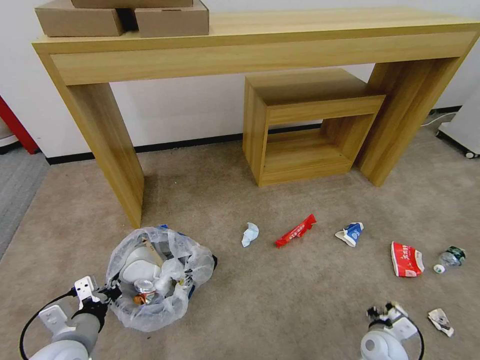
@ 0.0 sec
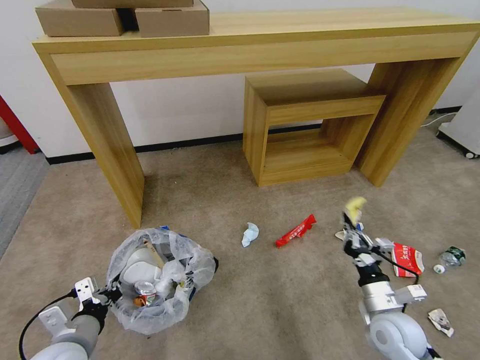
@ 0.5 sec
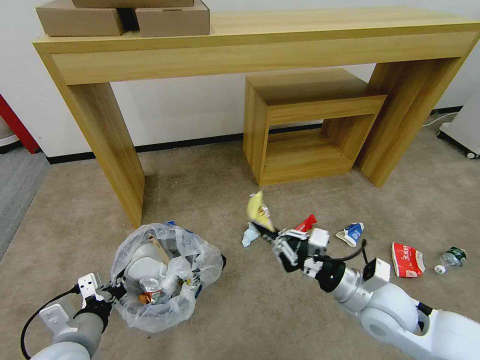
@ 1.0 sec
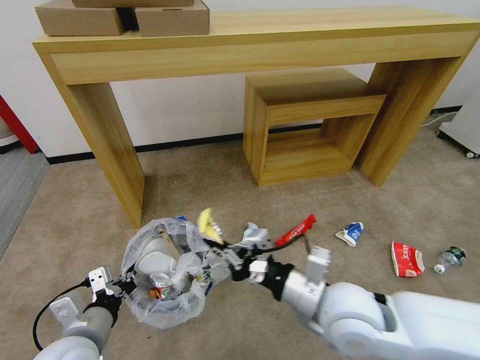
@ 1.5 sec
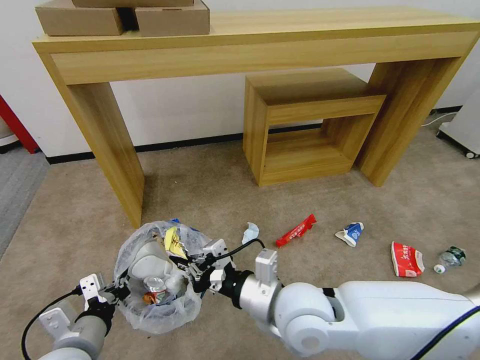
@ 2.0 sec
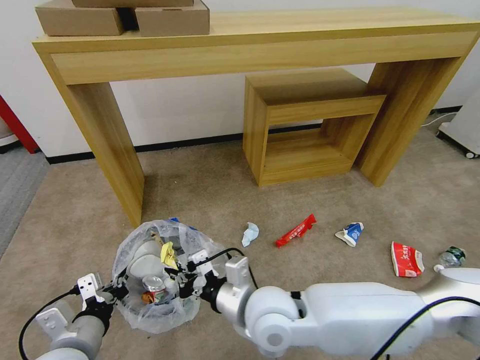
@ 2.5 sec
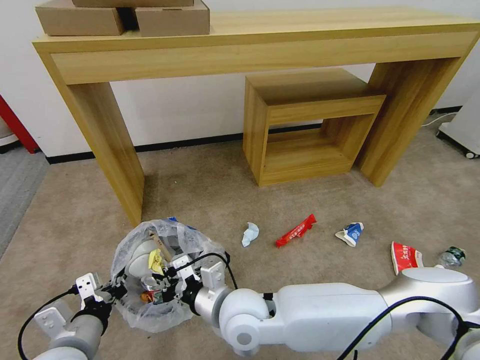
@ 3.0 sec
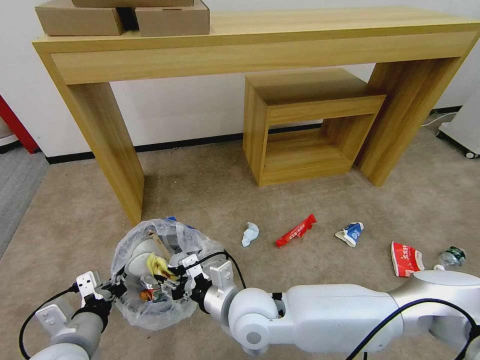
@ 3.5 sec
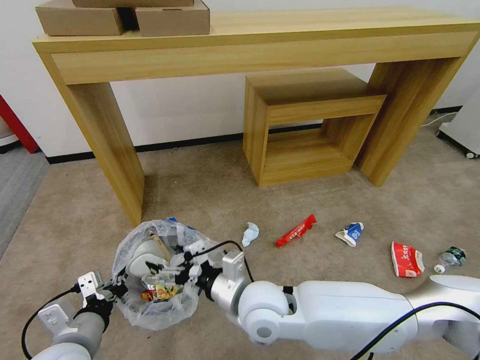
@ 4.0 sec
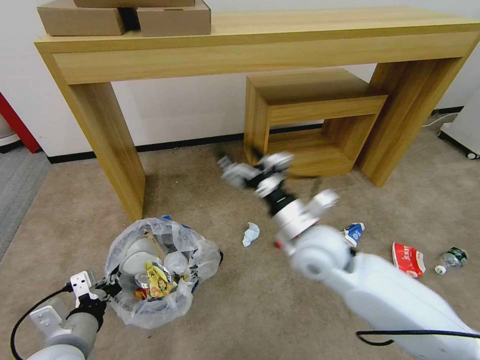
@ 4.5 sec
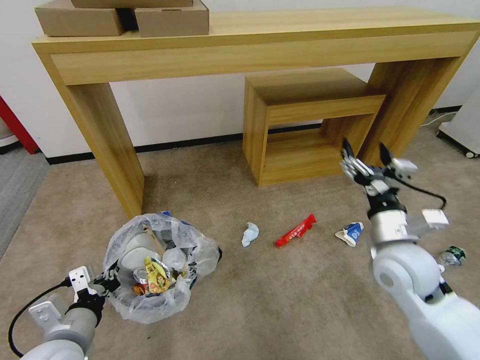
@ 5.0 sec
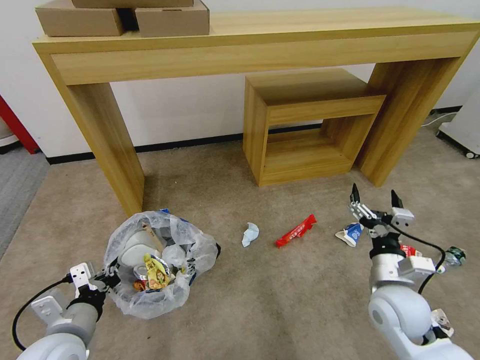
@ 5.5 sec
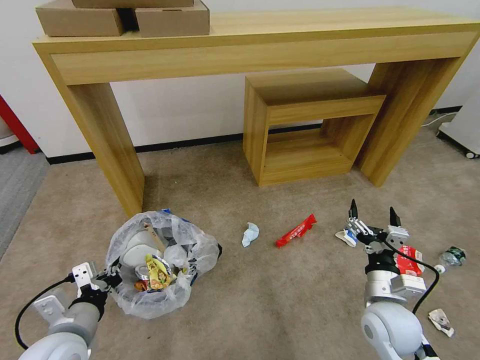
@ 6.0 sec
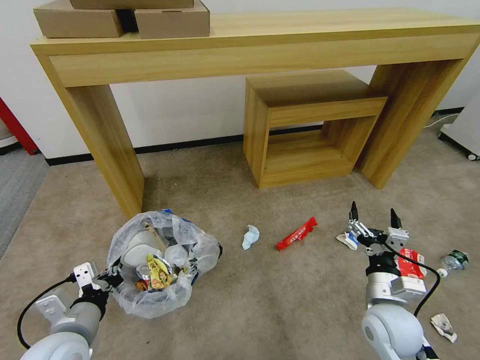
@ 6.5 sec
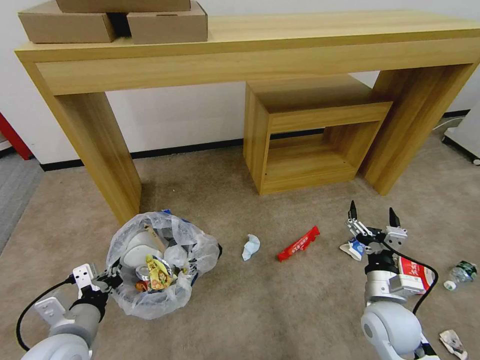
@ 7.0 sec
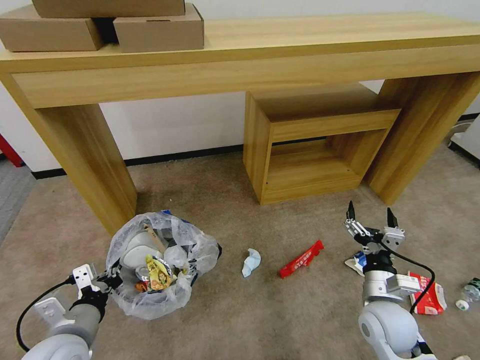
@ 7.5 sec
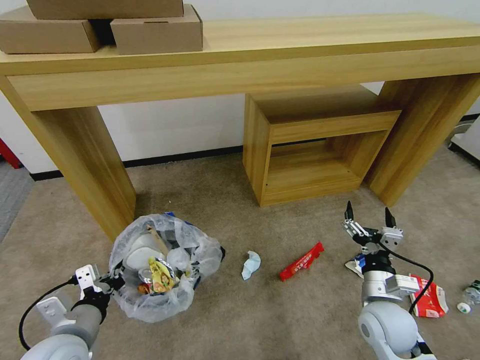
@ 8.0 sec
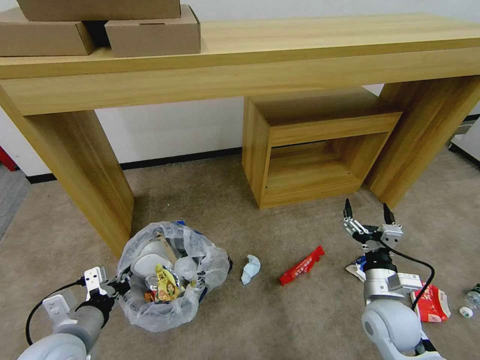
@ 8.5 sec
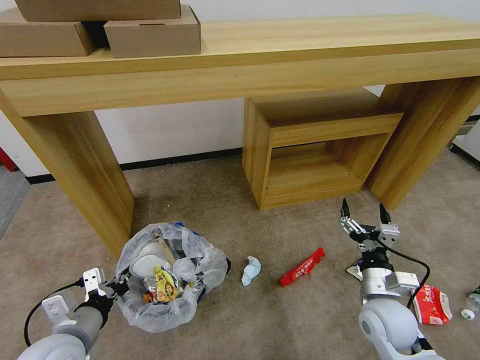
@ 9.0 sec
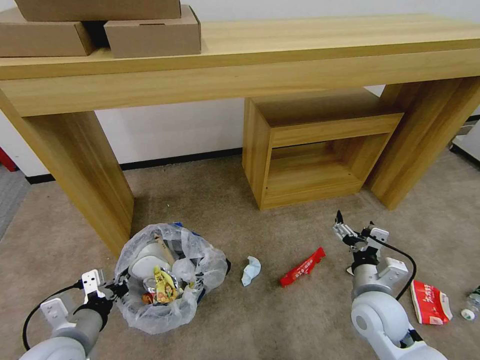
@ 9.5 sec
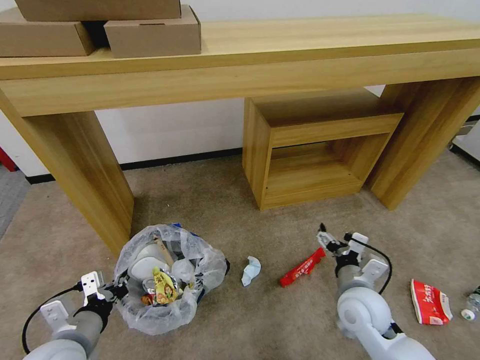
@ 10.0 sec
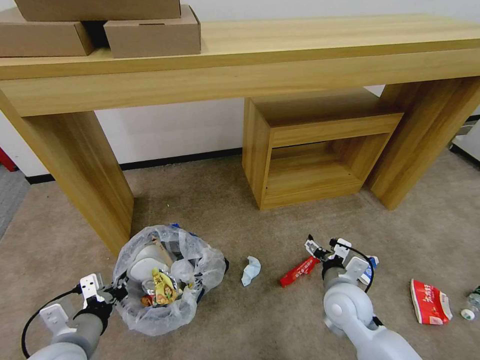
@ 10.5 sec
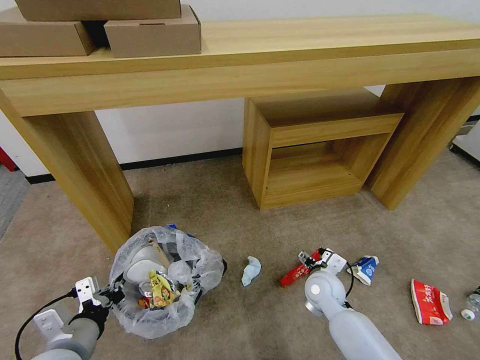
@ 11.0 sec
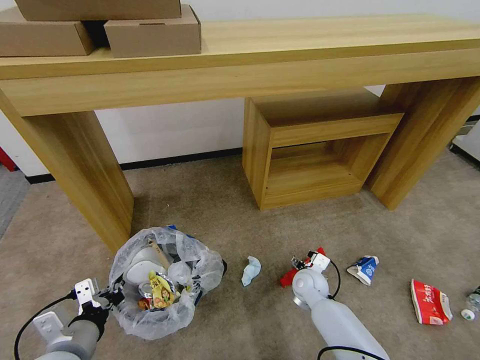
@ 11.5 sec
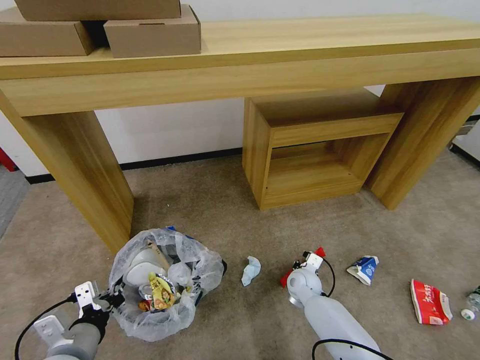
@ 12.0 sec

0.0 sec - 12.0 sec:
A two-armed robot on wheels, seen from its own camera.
Task of the whole recording: Pick up the trash bin and place the garbage on the floor into it.
0.0 sec - 2.0 sec: The left gripper changes place by roughly 5 cm. Meanwhile the right gripper travels upward and to the left by some 35 cm.
2.0 sec - 4.0 sec: The right gripper is displaced to the left by approximately 5 cm, and opens its fingers.
4.0 sec - 6.0 sec: The right gripper heads to the right, covering about 25 cm.
8.0 sec - 10.0 sec: The right gripper ends up about 5 cm from where it was.
10.0 sec - 12.0 sec: The right gripper is displaced downward and forward by some 20 cm, and closes its fingers.

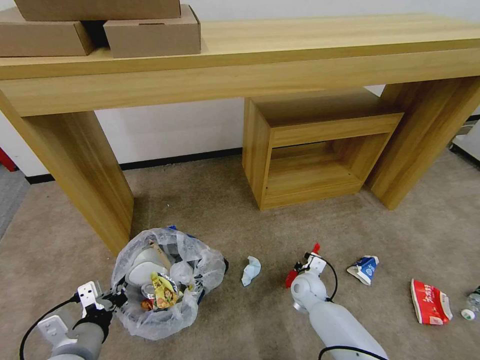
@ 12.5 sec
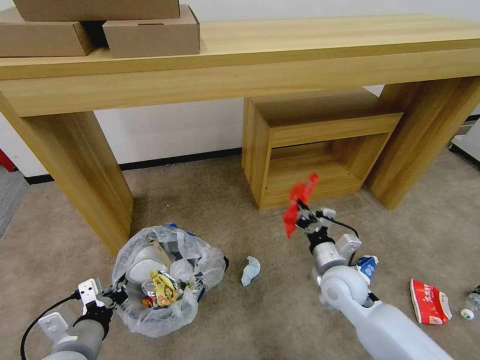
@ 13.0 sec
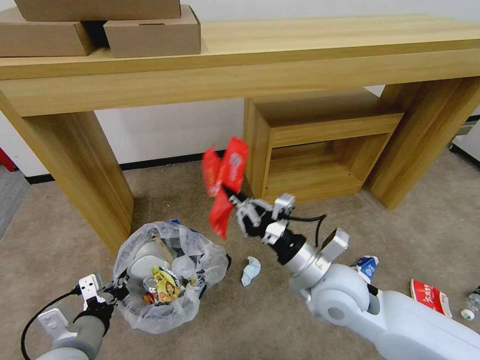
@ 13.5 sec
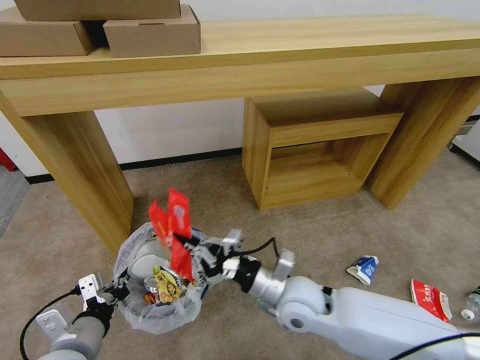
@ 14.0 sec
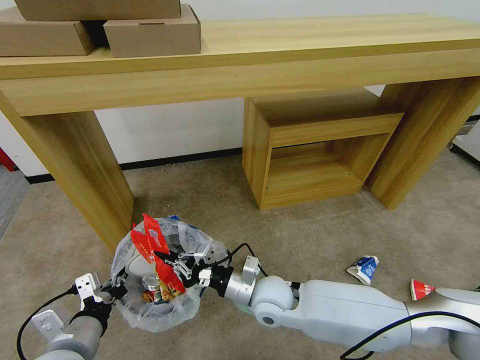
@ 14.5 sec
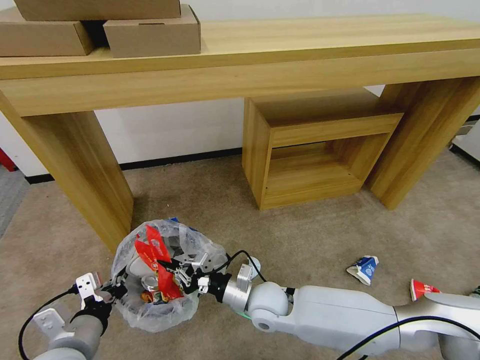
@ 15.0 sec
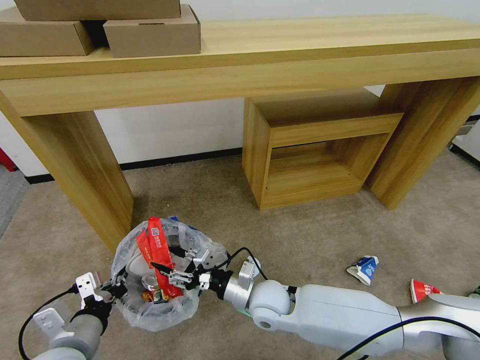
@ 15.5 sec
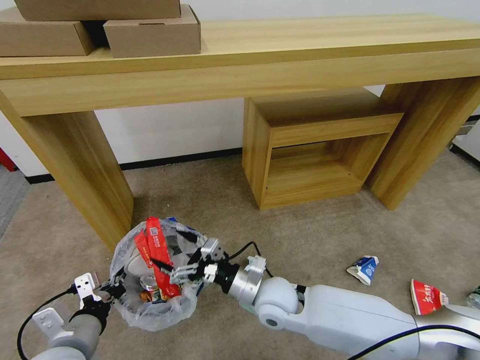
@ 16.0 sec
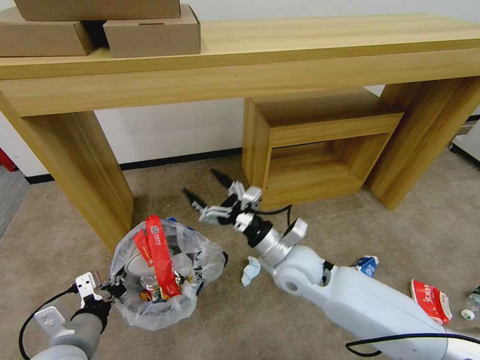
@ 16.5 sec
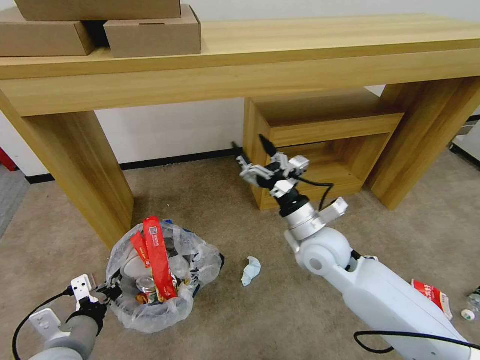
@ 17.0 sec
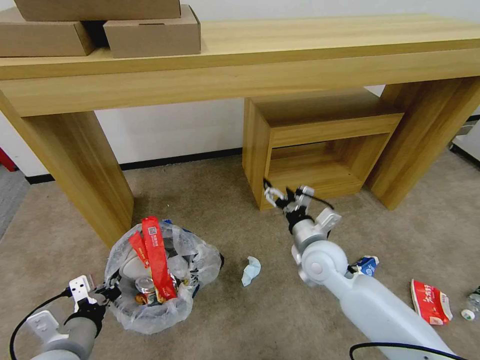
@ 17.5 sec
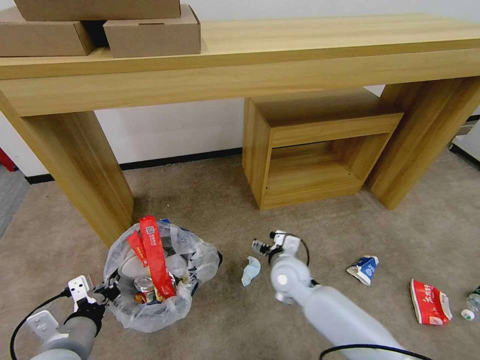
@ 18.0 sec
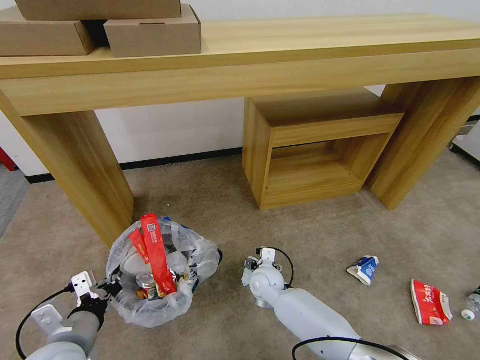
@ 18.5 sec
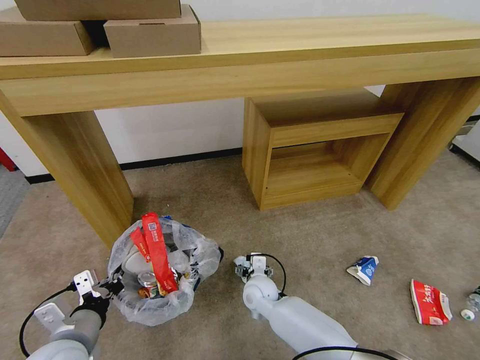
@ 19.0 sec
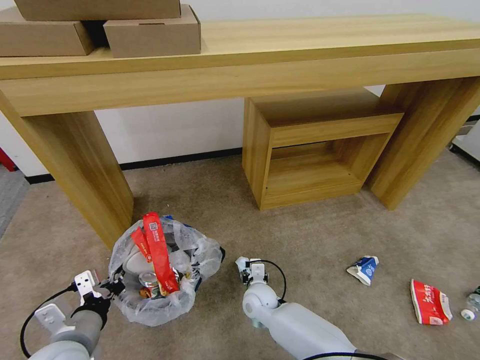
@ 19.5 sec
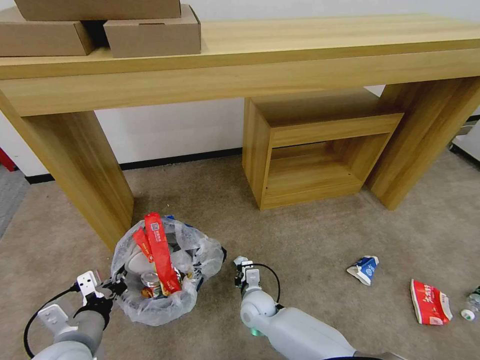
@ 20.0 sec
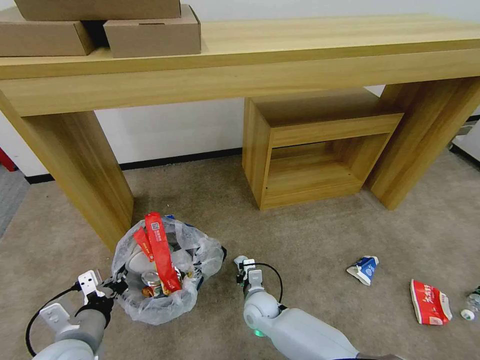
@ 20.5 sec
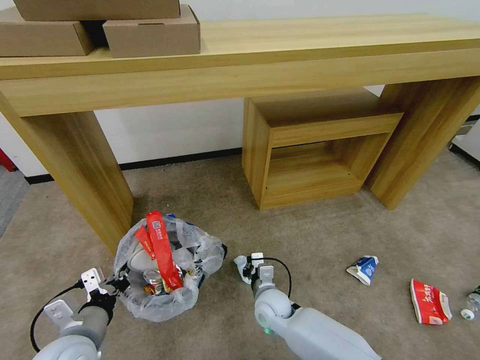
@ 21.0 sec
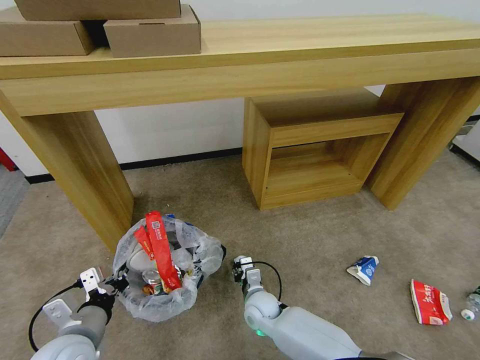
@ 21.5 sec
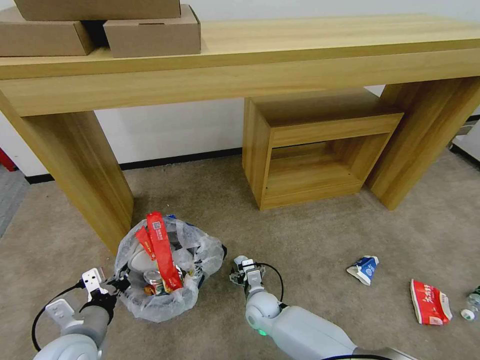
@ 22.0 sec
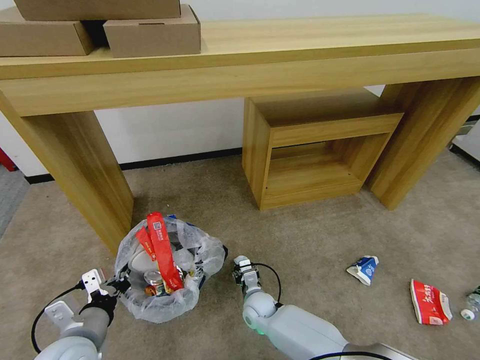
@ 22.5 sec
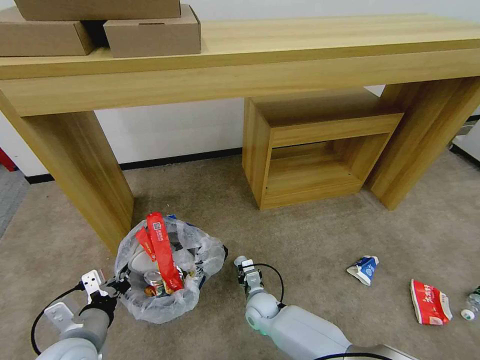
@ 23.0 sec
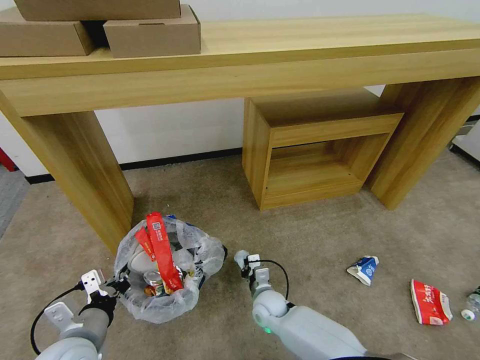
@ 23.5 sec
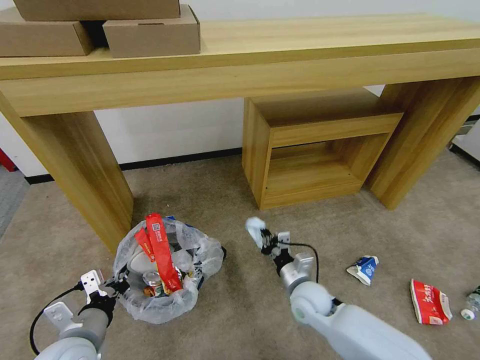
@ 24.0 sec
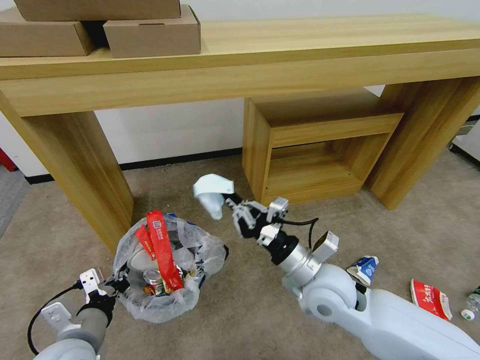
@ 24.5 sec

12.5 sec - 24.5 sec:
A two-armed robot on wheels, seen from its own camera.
Task of the whole recording: Pick up the trash bin and place the garbage on the floor into it.
12.5 sec - 14.5 sec: The right gripper is displaced upward, to the left and backward by about 20 cm.
14.5 sec - 16.5 sec: The right gripper heads upward, covering roughly 5 cm, and opens its fingers.
16.5 sec - 18.5 sec: The right gripper moves downward, about 20 cm.
18.5 sec - 20.5 sec: The right gripper travels backward by roughly 5 cm, and closes.
20.5 sec - 22.5 sec: The right gripper opens.
22.5 sec - 24.5 sec: The right gripper is displaced upward by about 30 cm, and closes its fingers.

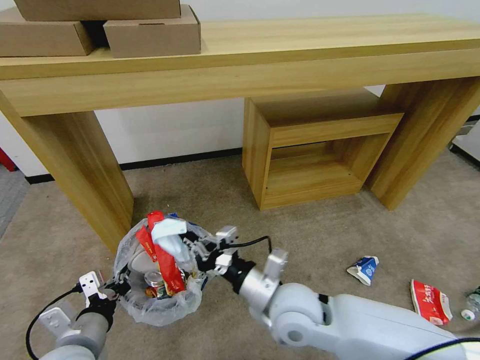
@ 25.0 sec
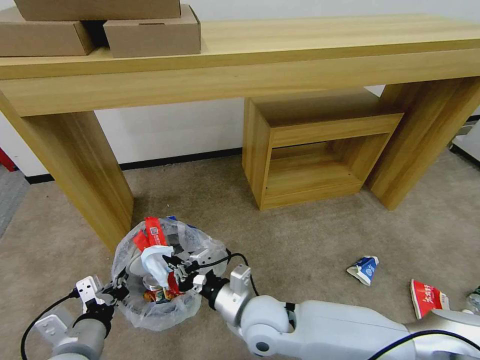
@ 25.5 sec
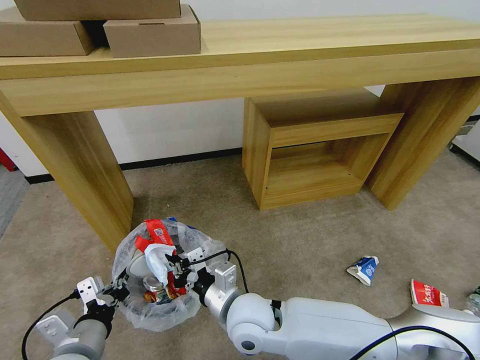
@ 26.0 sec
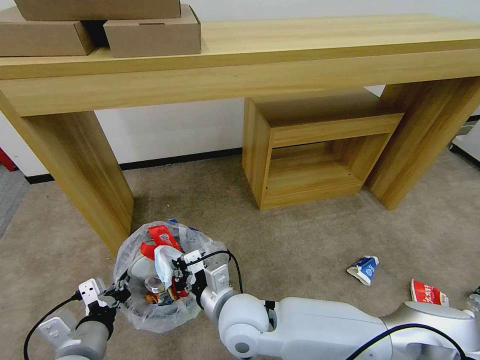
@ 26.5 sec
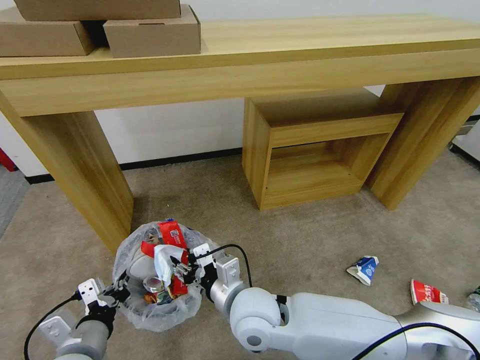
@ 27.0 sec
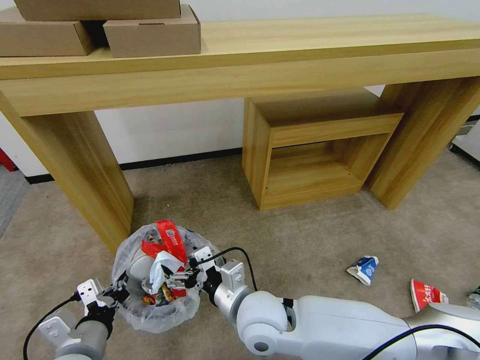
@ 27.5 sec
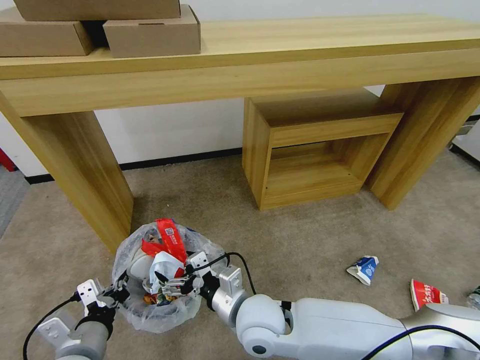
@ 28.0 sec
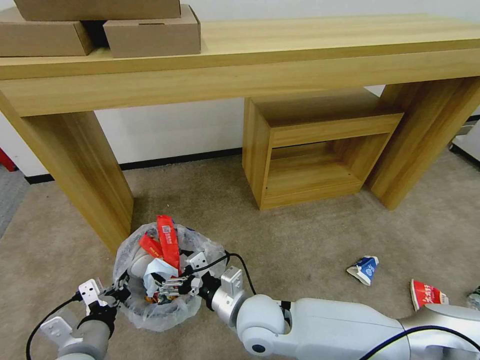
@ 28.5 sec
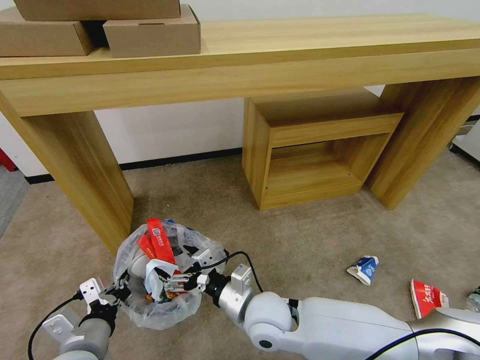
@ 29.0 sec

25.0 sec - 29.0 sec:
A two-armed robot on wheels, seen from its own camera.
Task of the whole recording: Pick up the trash bin and place the garbage on the floor into it.
25.0 sec - 27.0 sec: The right gripper goes some 10 cm to the left, and opens up.
27.0 sec - 29.0 sec: The right gripper ends up about 5 cm from where it was, and opens.
